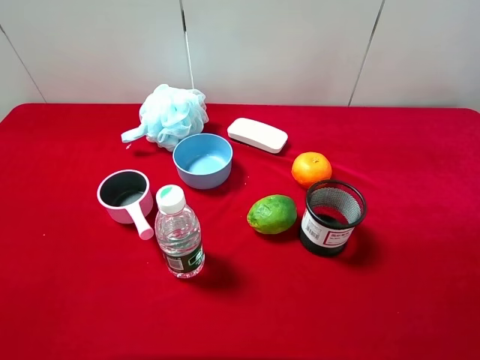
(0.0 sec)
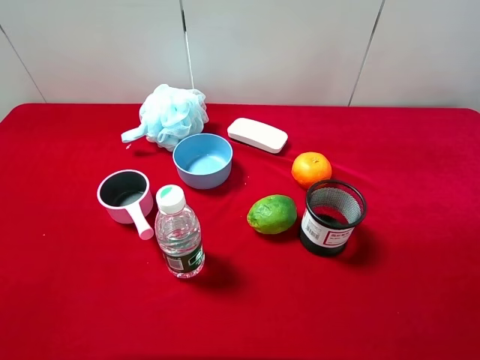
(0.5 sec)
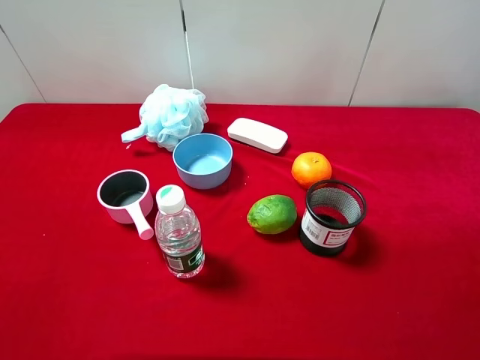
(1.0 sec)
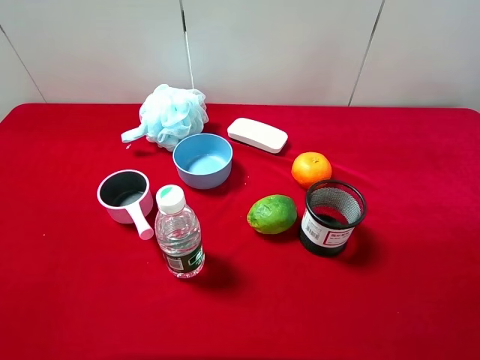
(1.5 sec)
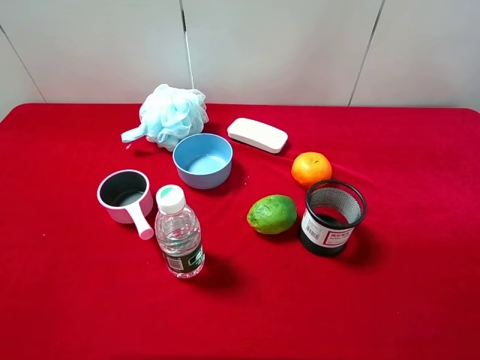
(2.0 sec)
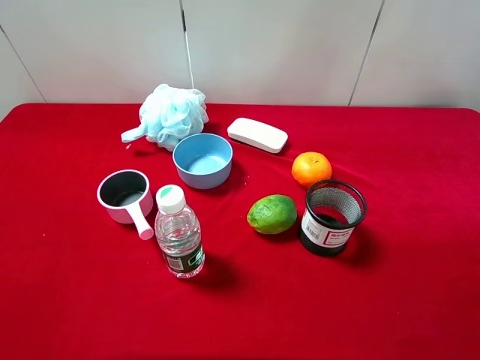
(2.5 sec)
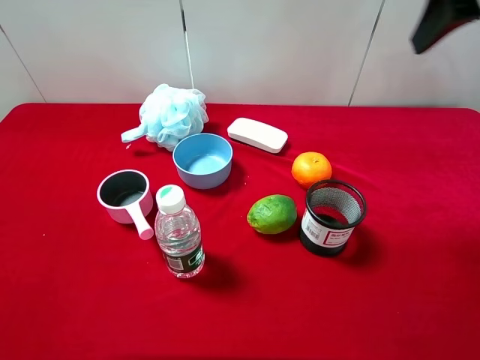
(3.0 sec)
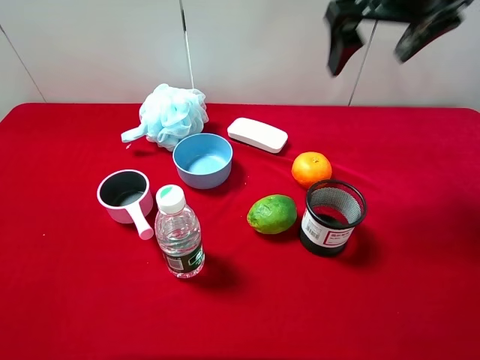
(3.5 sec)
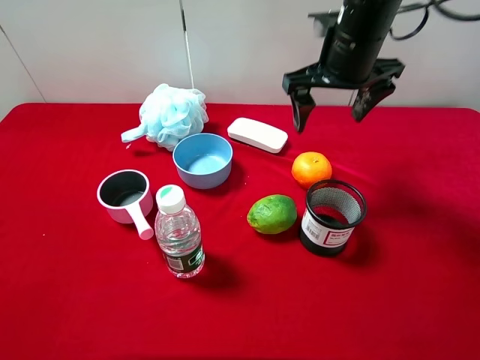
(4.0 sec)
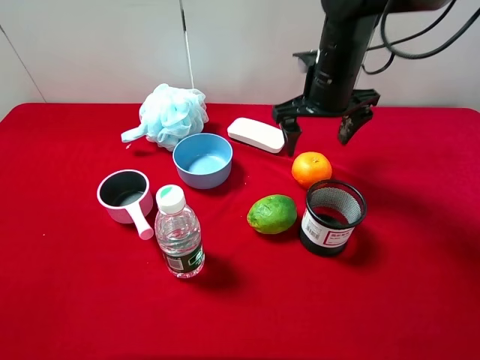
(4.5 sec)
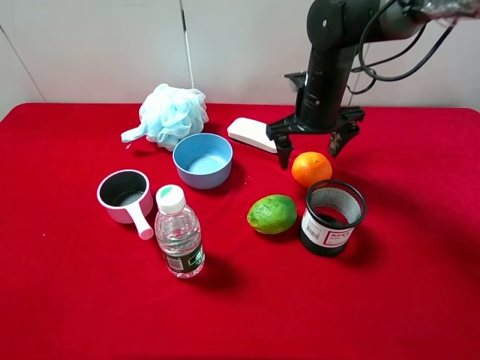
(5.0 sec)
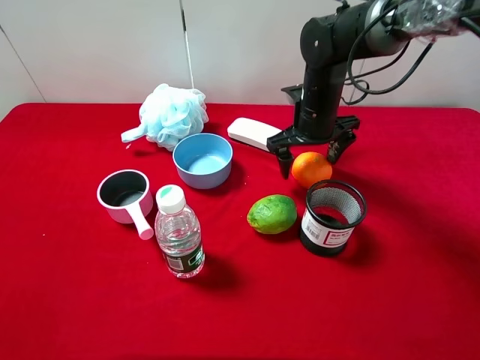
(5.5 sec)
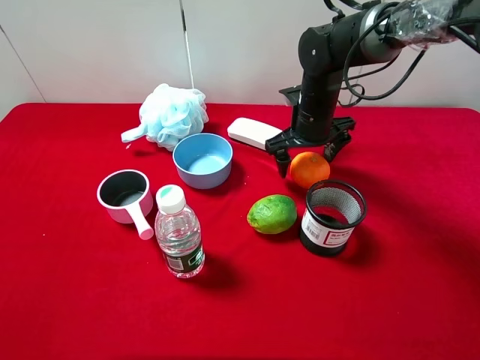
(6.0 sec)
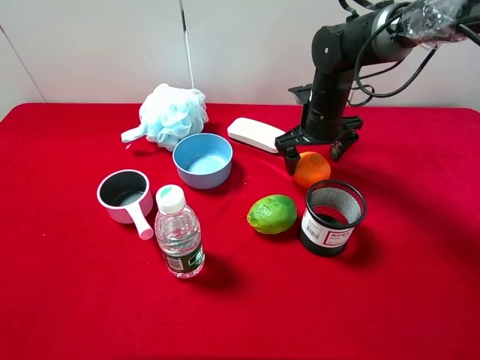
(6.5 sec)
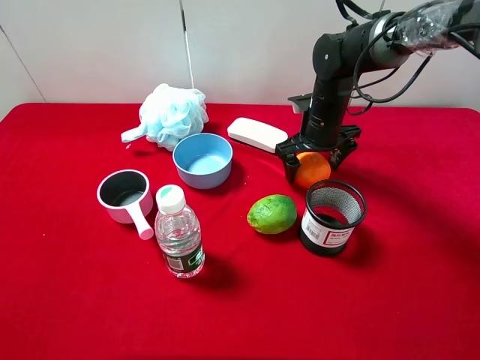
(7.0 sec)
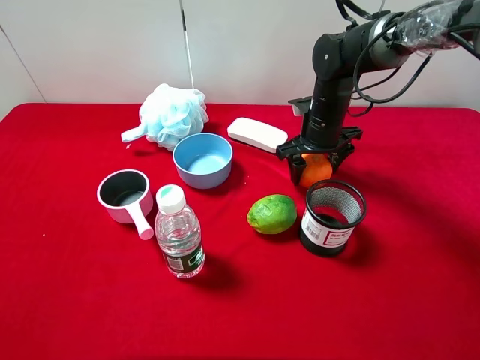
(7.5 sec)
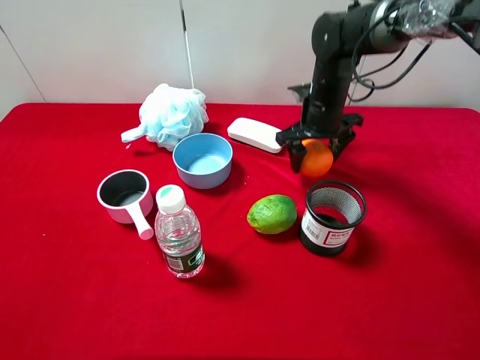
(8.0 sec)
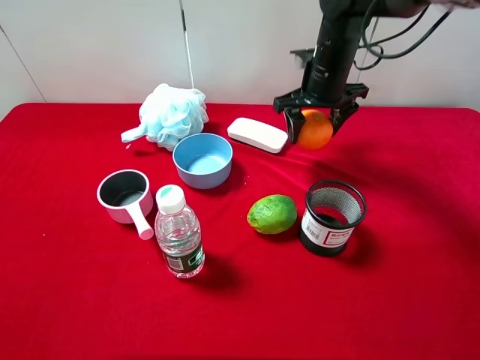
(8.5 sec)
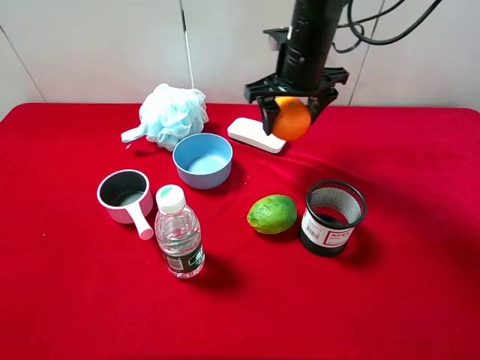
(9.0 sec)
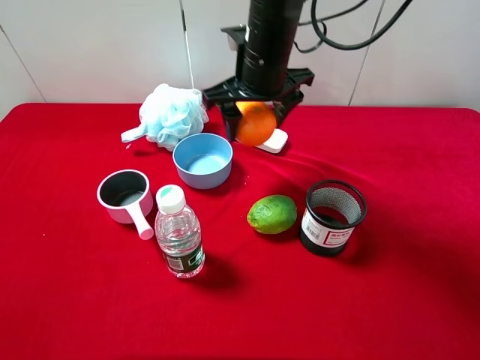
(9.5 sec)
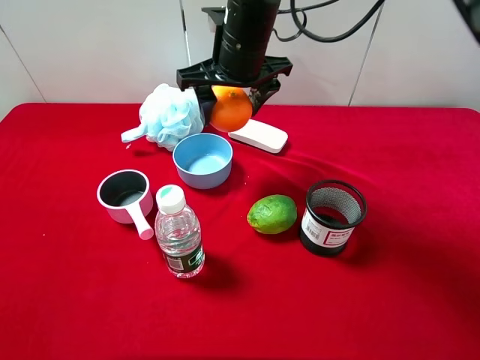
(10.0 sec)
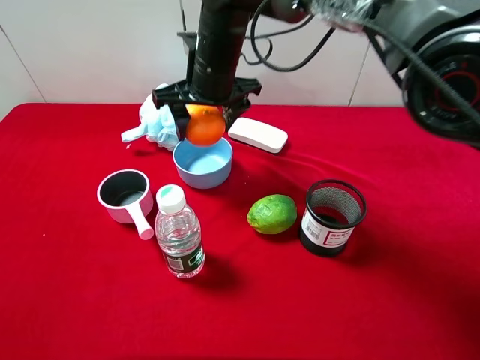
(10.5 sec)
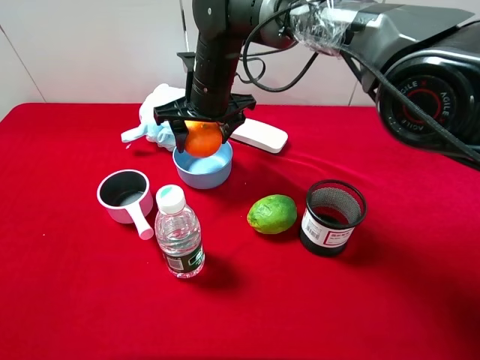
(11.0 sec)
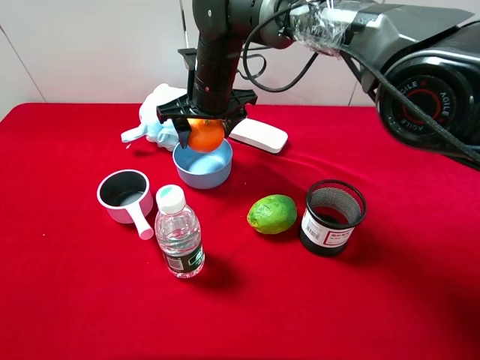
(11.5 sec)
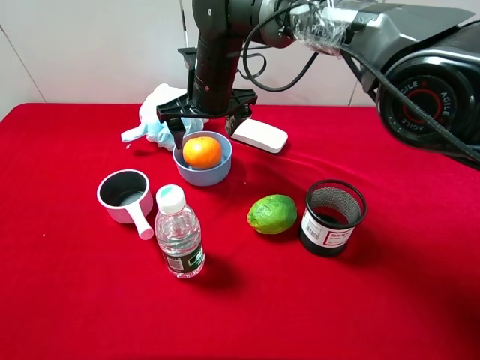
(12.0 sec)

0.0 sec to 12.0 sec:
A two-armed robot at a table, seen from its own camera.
Task of the whole recording: pick up an item with a gripper and place it in a random container on the desktop.
2.0 sec to 4.0 sec: The right gripper travels forward and to the left by roughly 35 cm.
4.0 sec to 6.0 sec: The right gripper is displaced downward by roughly 15 cm.
6.0 sec to 8.0 sec: The right gripper closes.
8.0 sec to 10.0 sec: The right gripper is displaced to the left and upward by some 15 cm.
10.0 sec to 12.0 sec: The right gripper is displaced downward by roughly 5 cm, and opens.

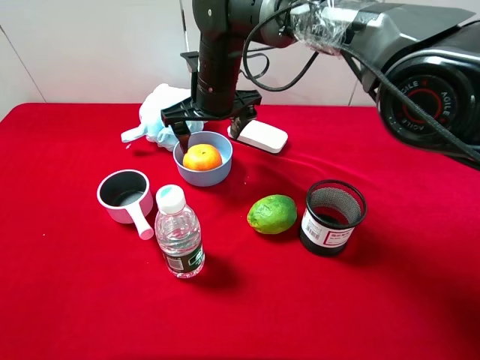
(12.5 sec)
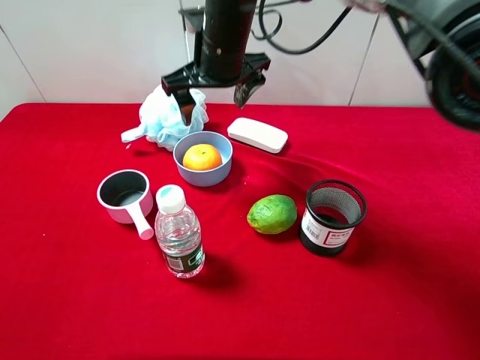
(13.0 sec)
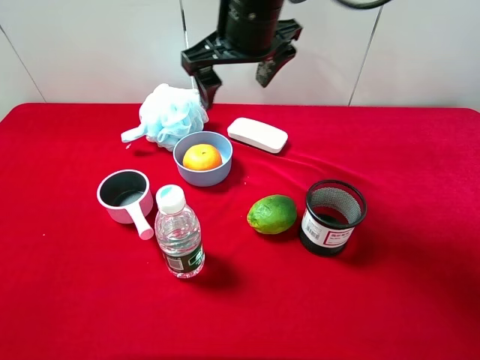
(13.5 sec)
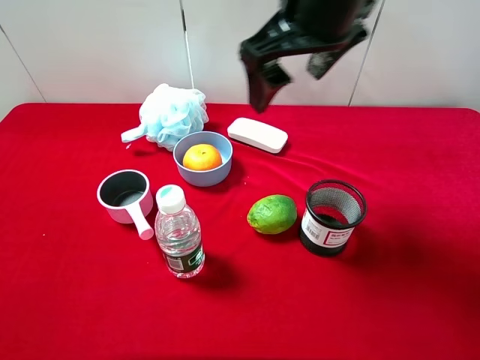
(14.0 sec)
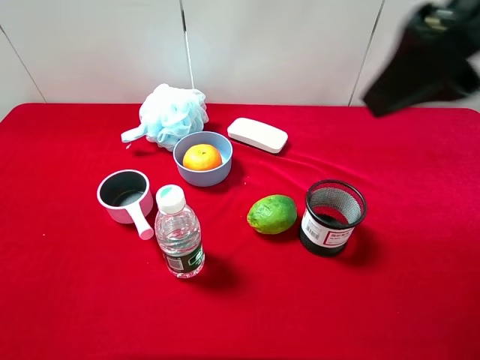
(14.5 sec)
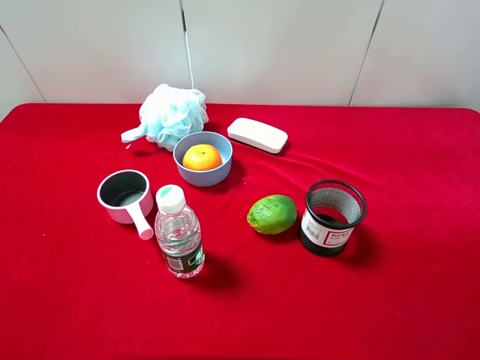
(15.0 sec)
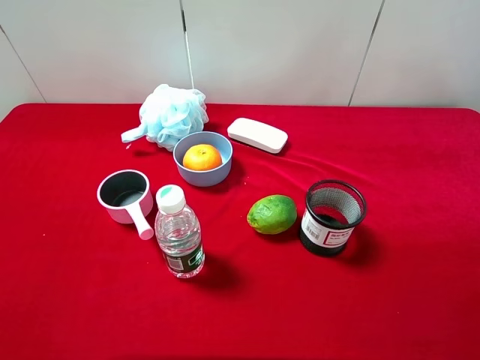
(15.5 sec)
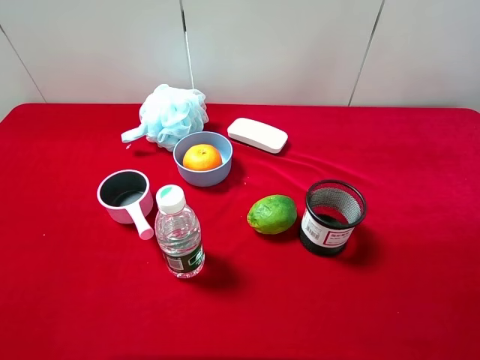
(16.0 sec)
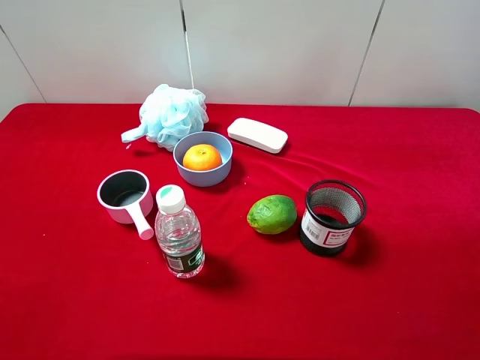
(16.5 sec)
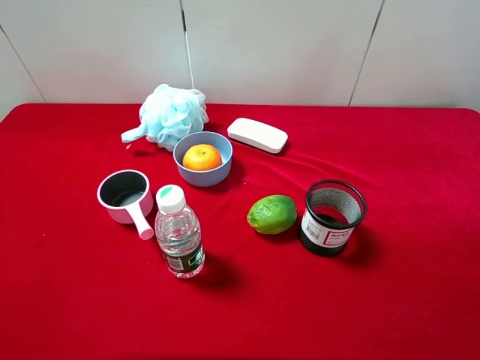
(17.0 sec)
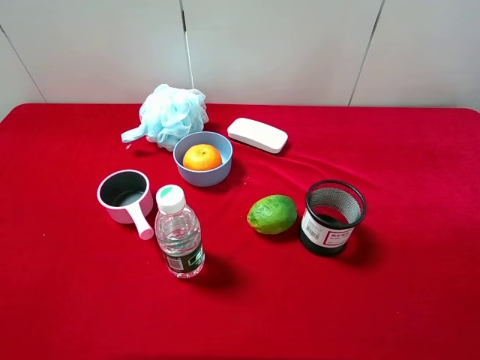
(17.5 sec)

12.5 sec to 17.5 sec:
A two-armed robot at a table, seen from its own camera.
Task of the whole recording: pick up an item with a gripper and place it in a random container on the desktop.
12.5 sec to 15.0 sec: The right gripper is displaced backward, to the right and upward by approximately 50 cm.
